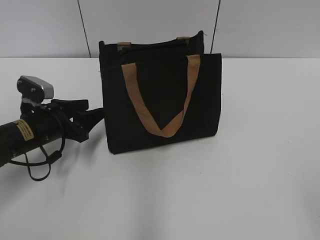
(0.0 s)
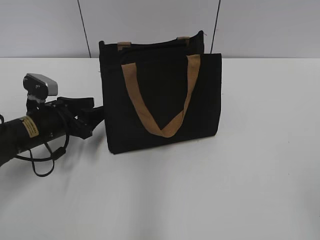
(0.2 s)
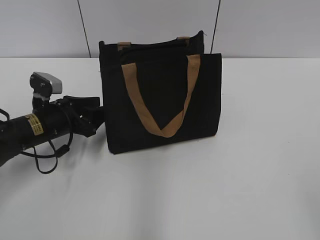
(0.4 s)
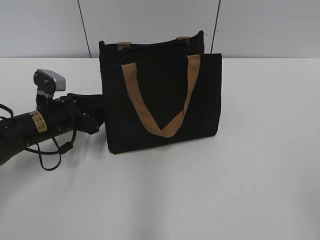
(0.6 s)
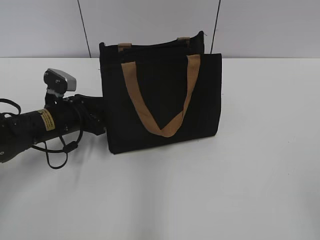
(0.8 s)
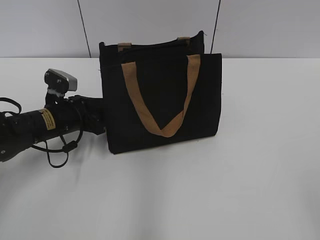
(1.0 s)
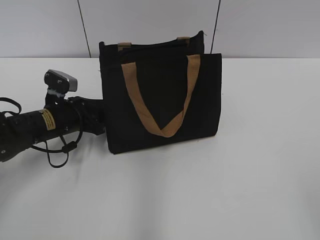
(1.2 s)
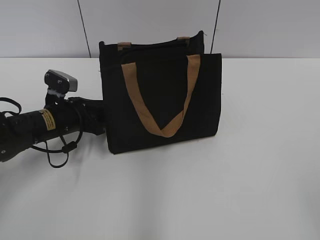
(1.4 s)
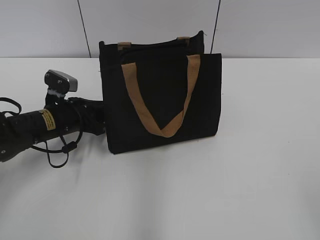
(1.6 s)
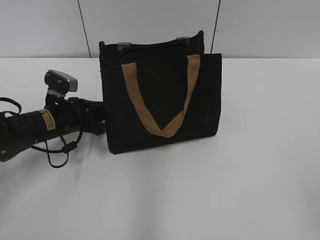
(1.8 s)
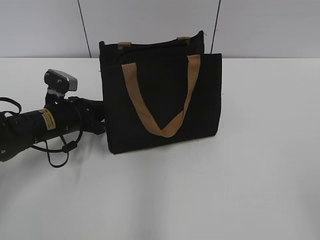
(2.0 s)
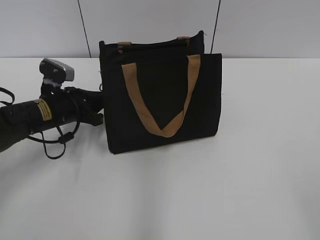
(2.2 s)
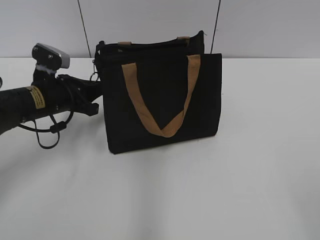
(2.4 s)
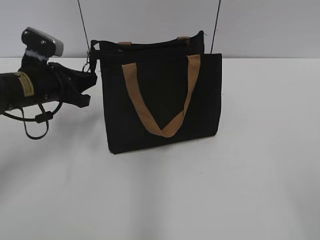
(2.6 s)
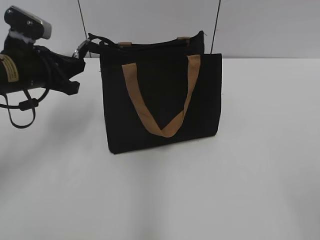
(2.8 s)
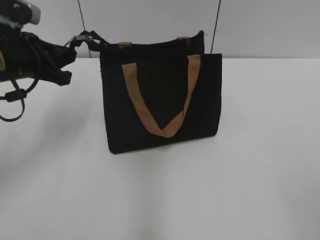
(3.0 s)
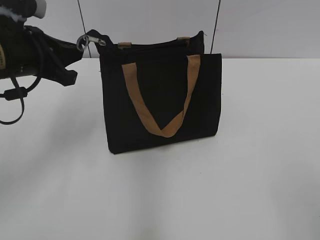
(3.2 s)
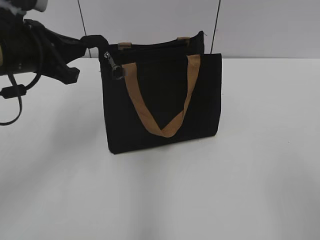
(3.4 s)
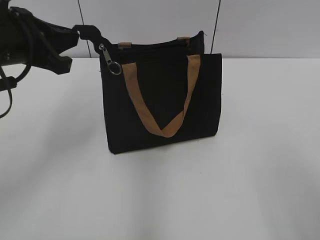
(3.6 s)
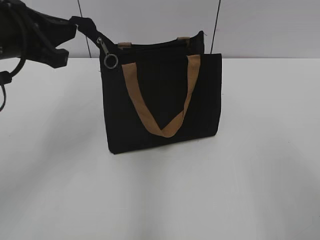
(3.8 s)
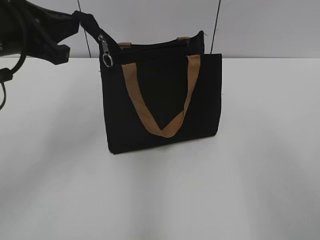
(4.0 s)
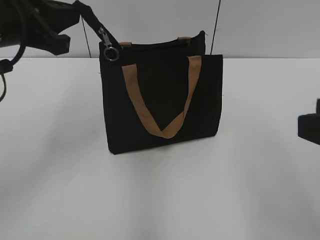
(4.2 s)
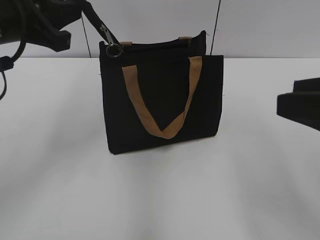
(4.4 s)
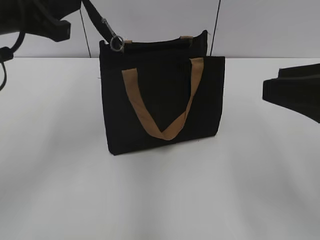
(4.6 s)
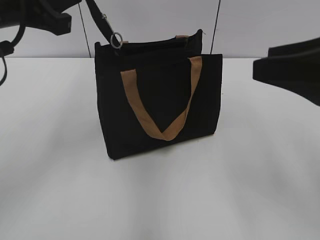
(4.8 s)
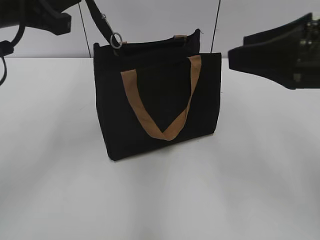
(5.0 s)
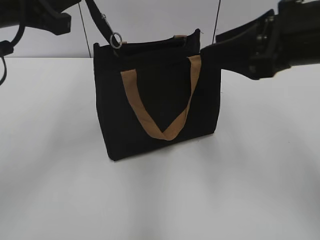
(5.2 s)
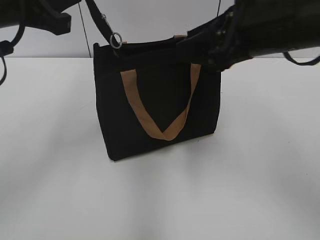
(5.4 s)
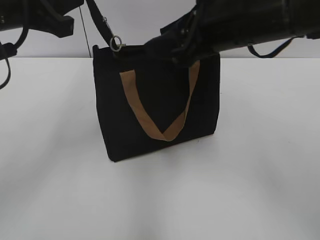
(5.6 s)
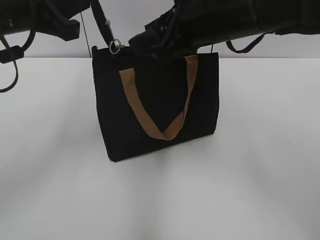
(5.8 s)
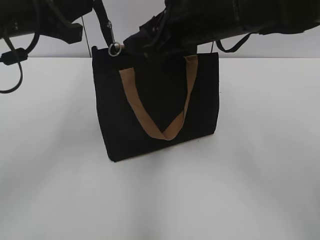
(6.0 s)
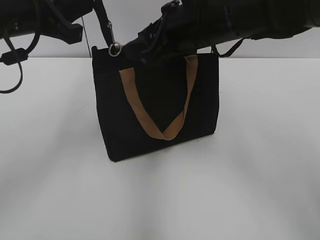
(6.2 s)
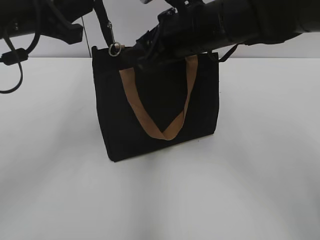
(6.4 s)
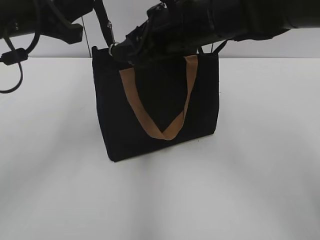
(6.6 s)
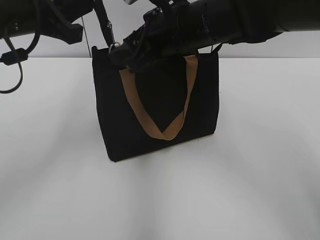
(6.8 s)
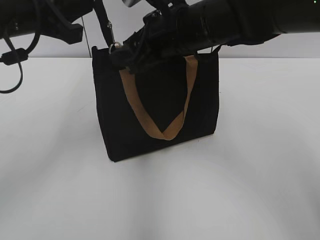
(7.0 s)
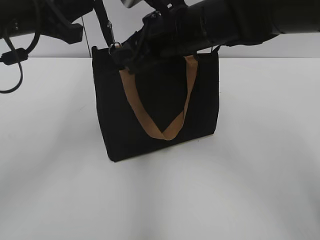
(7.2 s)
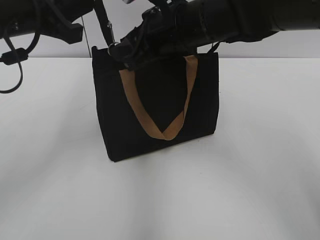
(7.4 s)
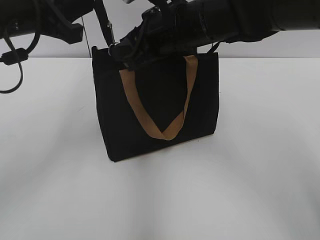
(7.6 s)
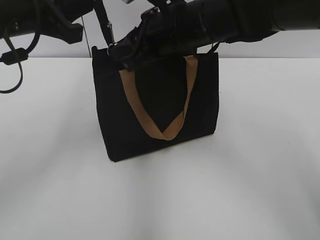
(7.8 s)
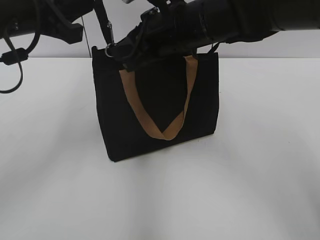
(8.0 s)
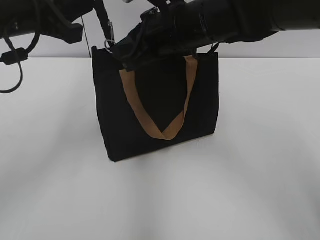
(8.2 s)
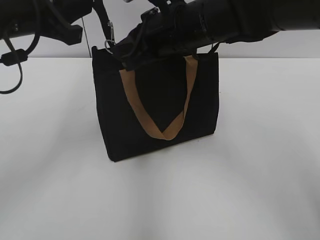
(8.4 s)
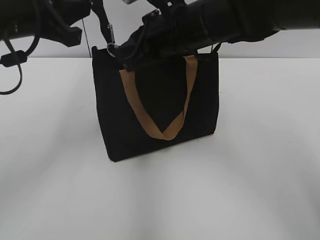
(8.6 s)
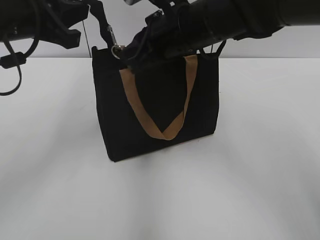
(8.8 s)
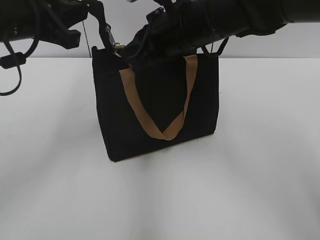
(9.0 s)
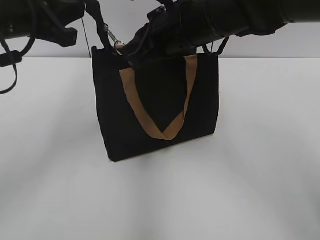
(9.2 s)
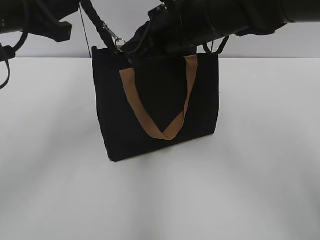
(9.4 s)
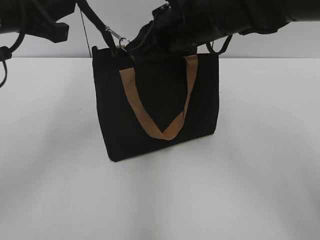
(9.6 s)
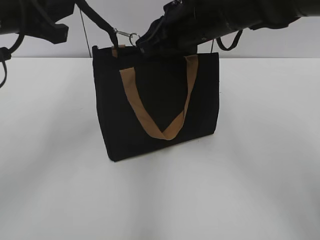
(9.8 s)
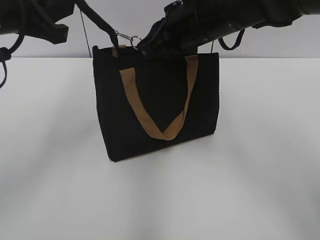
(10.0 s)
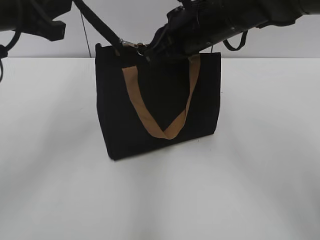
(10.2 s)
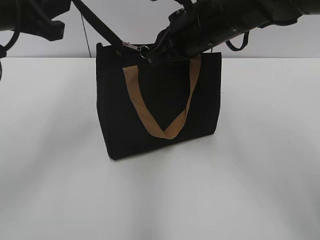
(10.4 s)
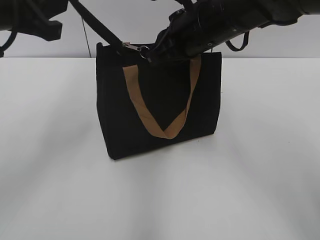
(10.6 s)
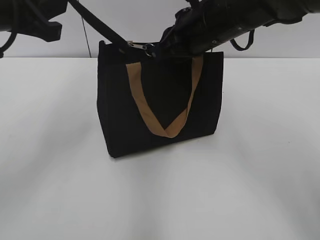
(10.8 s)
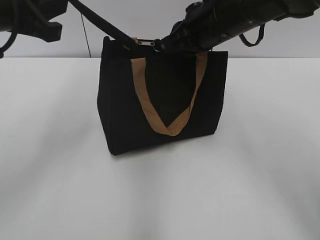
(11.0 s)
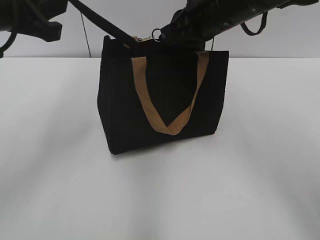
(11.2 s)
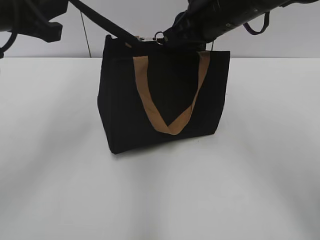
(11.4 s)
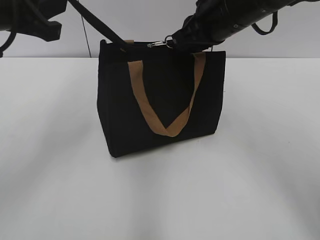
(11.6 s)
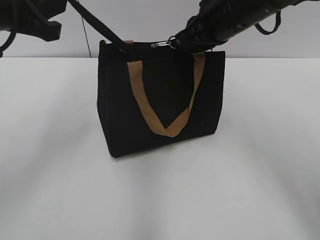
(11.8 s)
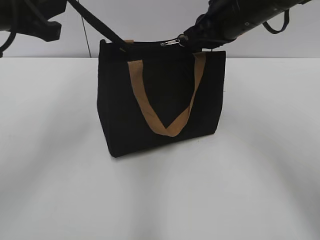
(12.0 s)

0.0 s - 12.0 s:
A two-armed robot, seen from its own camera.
0.0 s - 1.6 s: The left gripper closes its fingers.
1.6 s - 3.0 s: The left gripper travels upward by approximately 15 cm, and closes.
3.0 s - 4.4 s: The left gripper shifts some 10 cm upward and backward, while the right gripper travels forward by approximately 15 cm.
4.4 s - 6.0 s: The right gripper travels forward and to the left by some 25 cm.
6.0 s - 7.6 s: The grippers stay close to where they were, moving slightly.
7.6 s - 9.0 s: The right gripper closes.
9.0 s - 10.4 s: The grippers move only a little.
10.4 s - 12.0 s: The right gripper travels to the right by approximately 5 cm.

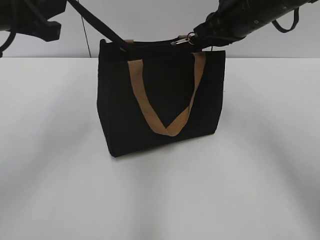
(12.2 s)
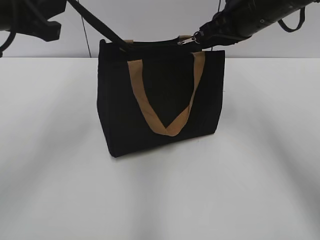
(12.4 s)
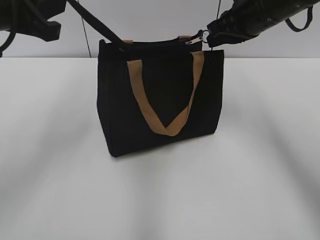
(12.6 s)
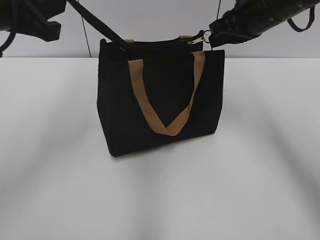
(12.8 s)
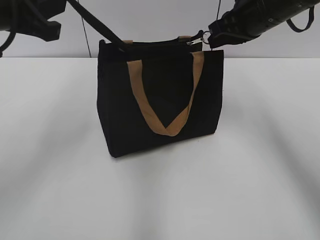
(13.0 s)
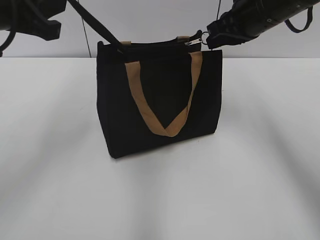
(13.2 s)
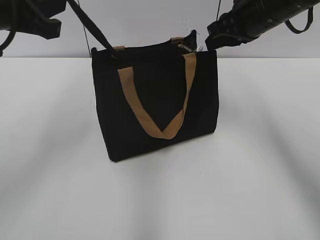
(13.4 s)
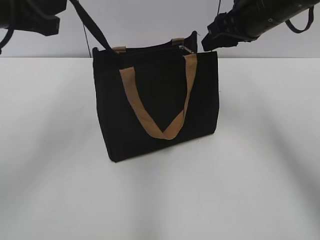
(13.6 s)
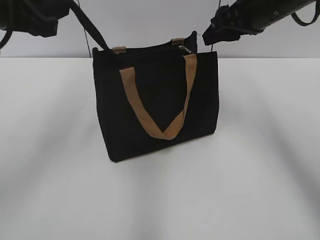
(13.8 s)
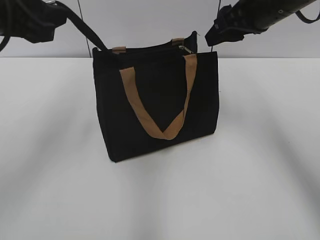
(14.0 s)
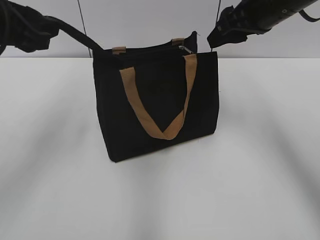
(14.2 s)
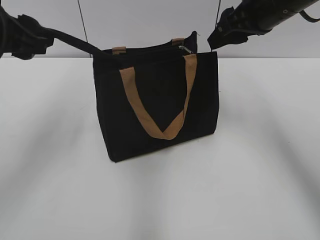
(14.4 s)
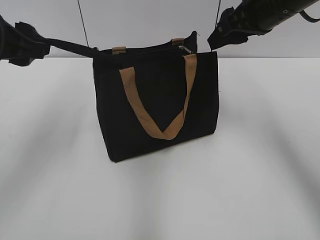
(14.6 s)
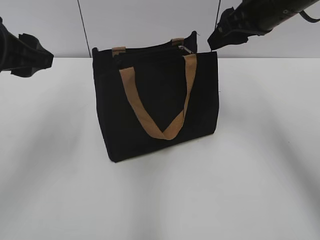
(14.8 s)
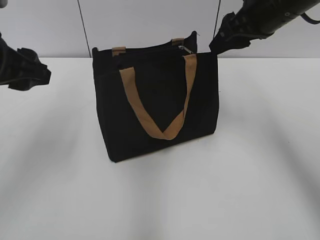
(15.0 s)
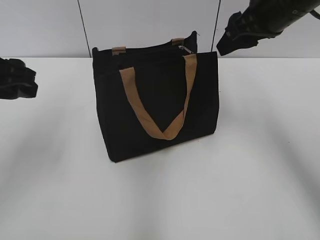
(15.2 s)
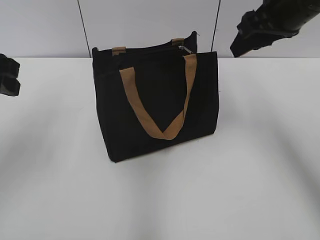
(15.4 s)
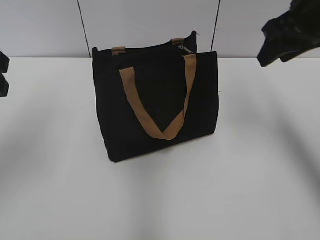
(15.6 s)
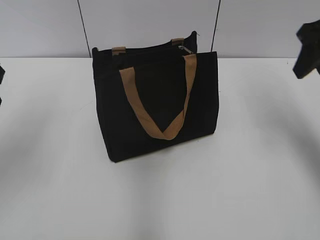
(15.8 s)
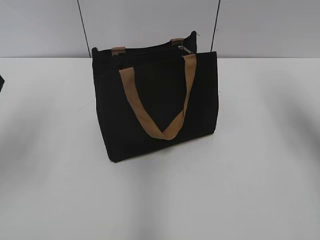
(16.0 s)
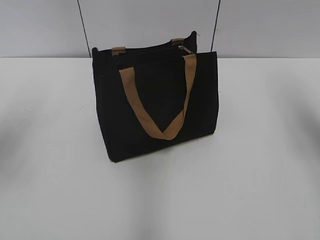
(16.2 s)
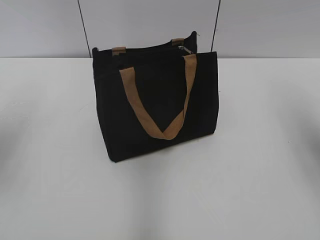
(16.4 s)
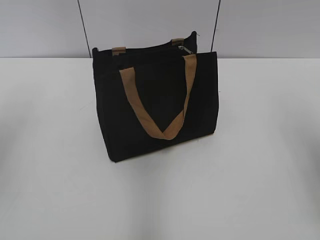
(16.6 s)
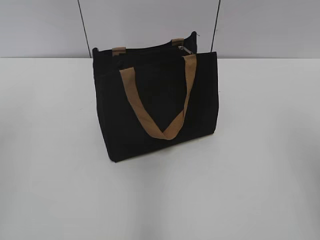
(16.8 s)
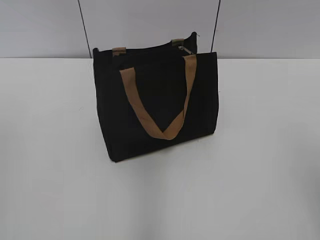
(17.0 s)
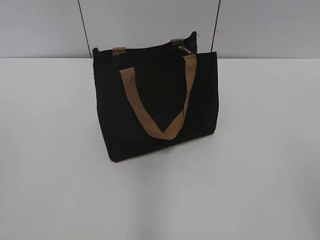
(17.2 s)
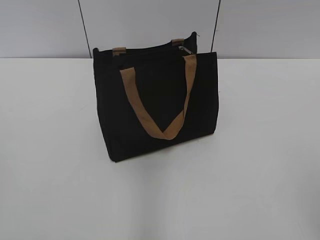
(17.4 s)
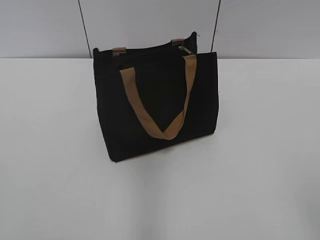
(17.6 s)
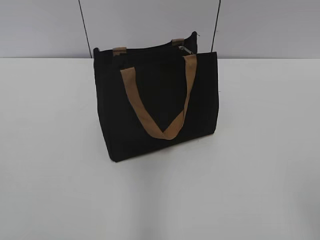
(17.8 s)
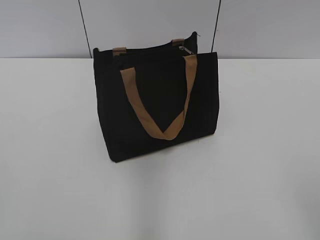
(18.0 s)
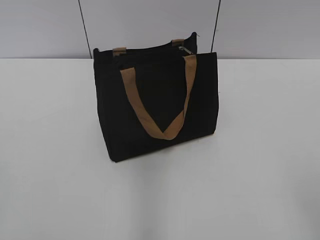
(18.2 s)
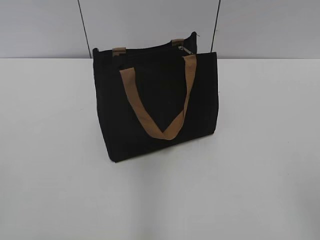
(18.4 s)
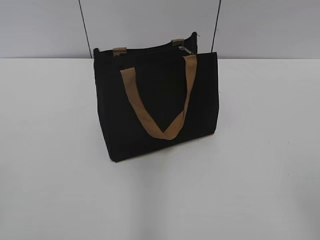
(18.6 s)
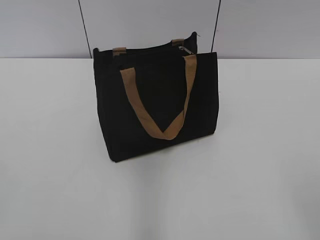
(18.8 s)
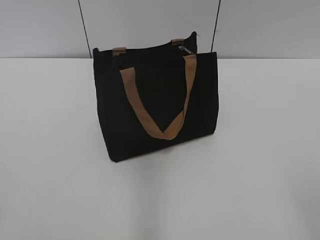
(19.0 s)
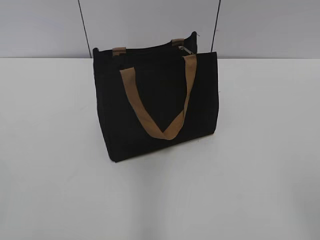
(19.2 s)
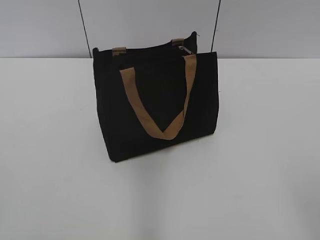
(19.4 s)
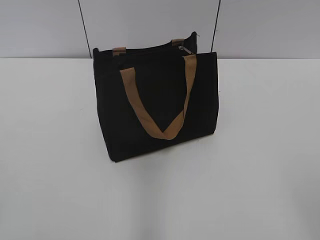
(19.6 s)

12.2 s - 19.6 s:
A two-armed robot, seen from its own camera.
Step, 13.6 s - 14.8 s: Grab the zipper with your left hand.
12.2 s - 13.6 s: The right gripper opens.
13.6 s - 15.2 s: The left gripper changes place by about 5 cm, and opens.
15.2 s - 16.6 s: The left gripper moves to the left, about 5 cm. The right gripper heads backward and to the right, covering some 20 cm.
16.6 s - 18.2 s: Both grippers move backward, approximately 20 cm.
